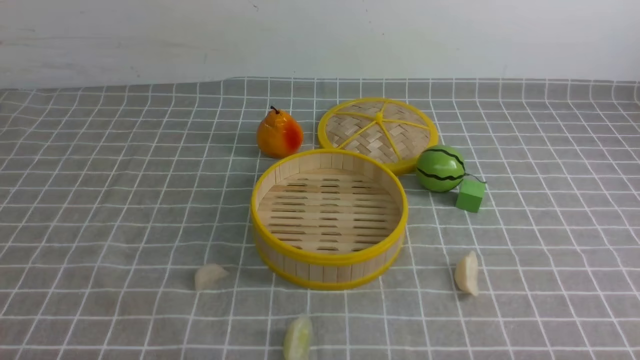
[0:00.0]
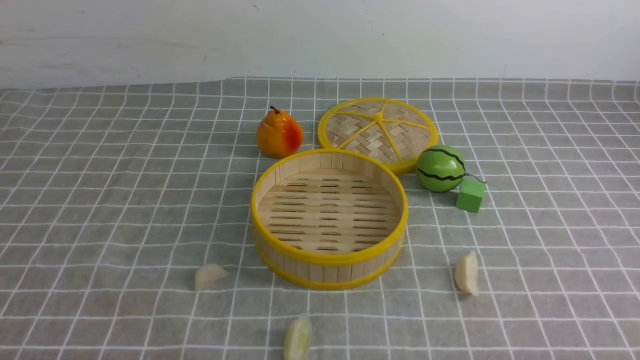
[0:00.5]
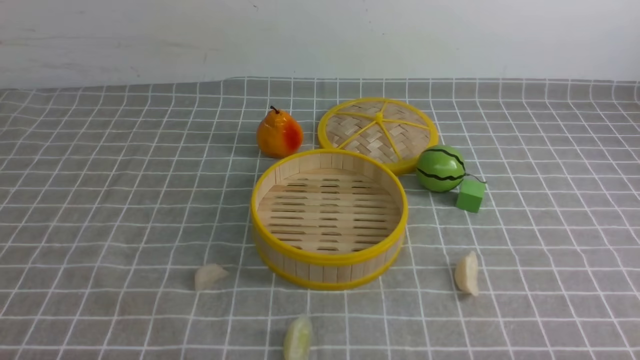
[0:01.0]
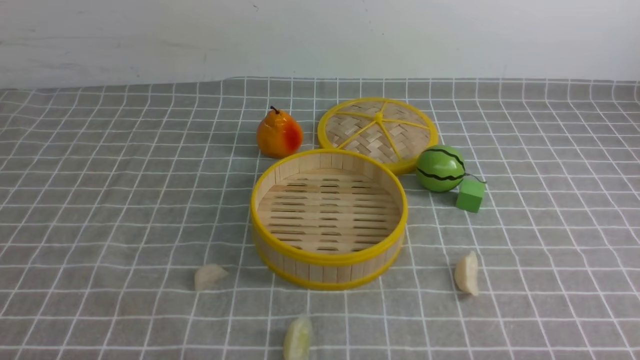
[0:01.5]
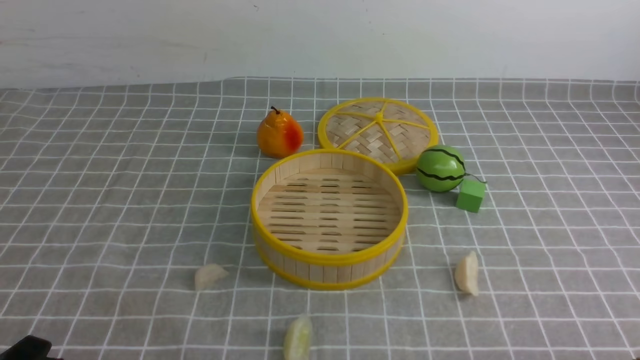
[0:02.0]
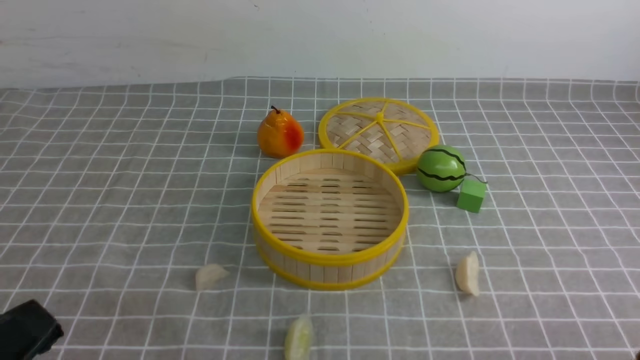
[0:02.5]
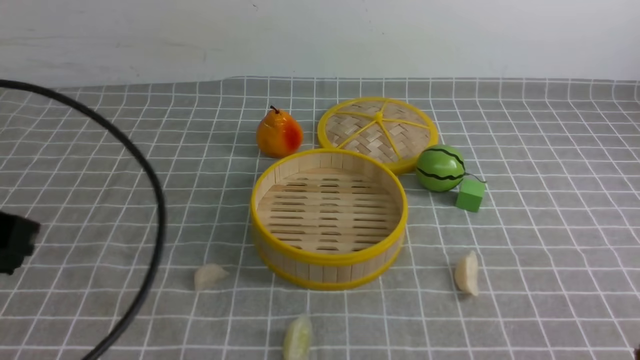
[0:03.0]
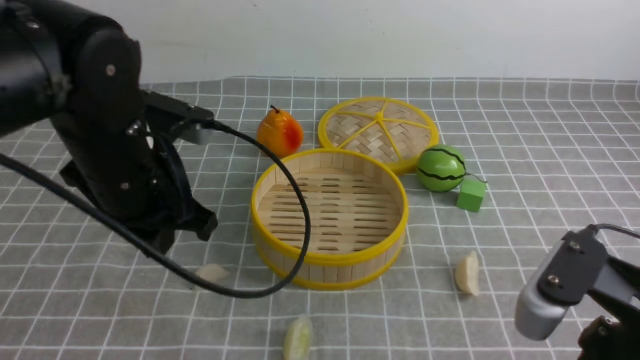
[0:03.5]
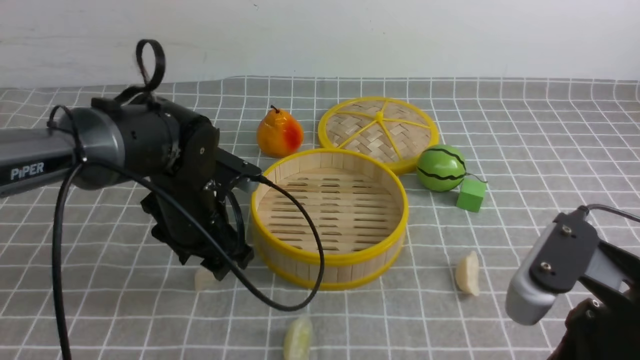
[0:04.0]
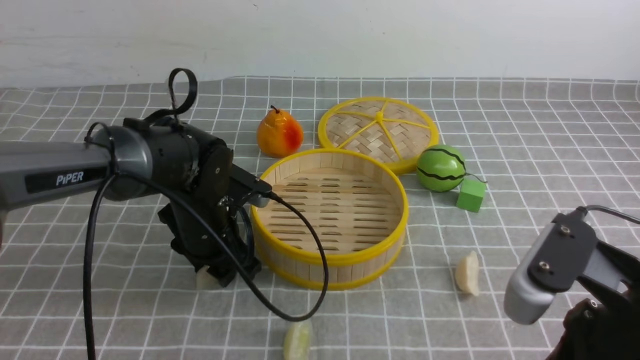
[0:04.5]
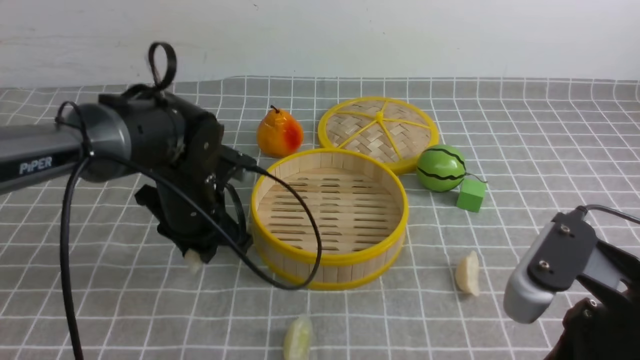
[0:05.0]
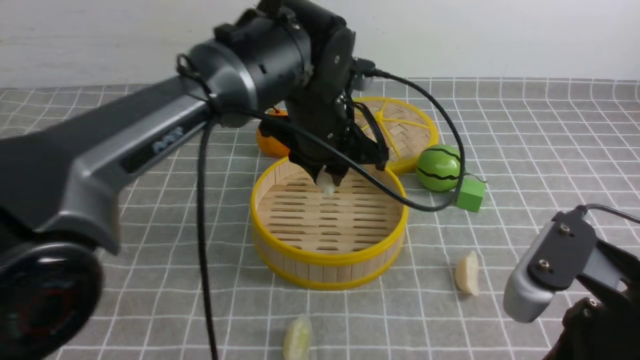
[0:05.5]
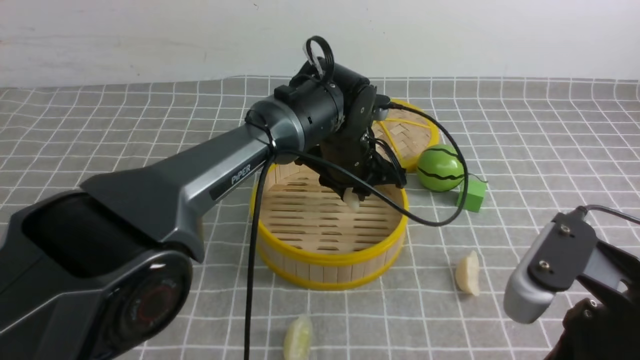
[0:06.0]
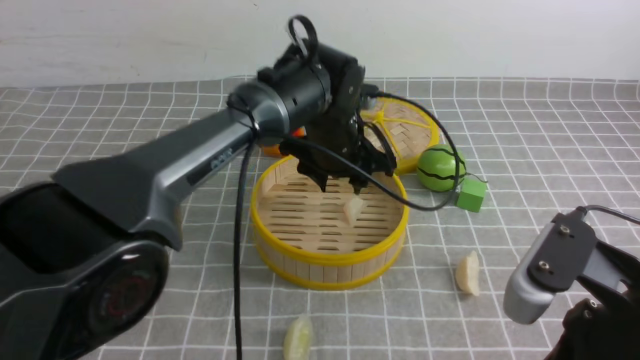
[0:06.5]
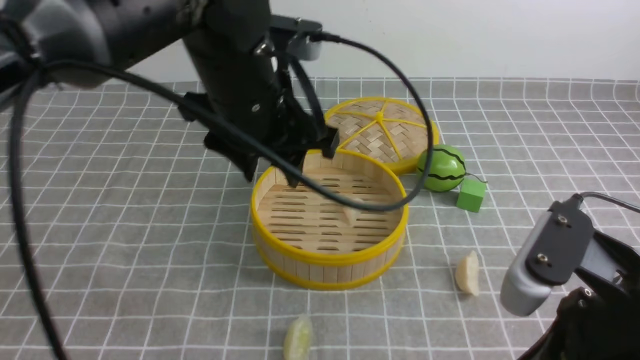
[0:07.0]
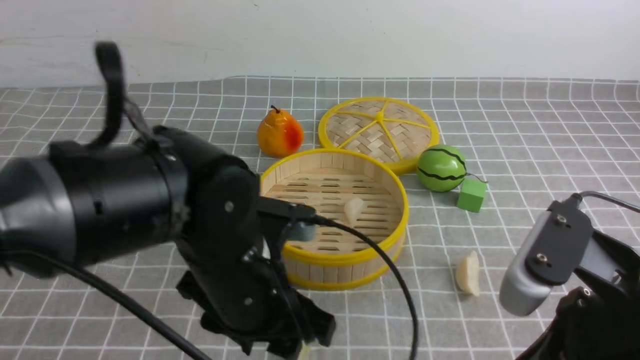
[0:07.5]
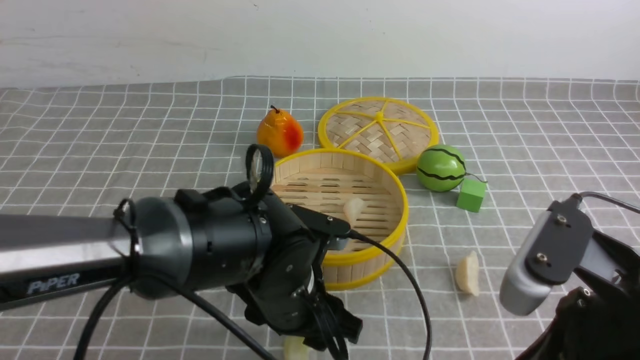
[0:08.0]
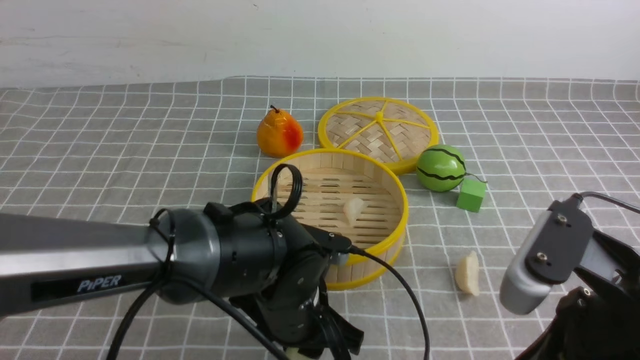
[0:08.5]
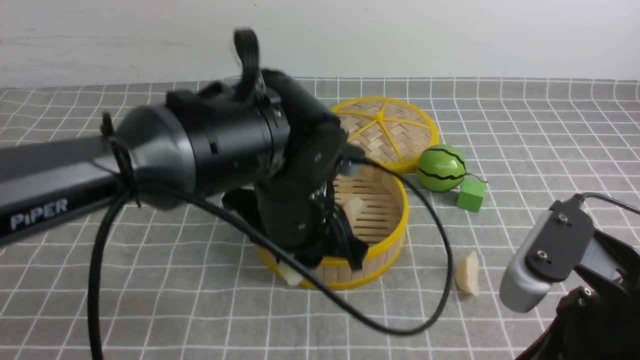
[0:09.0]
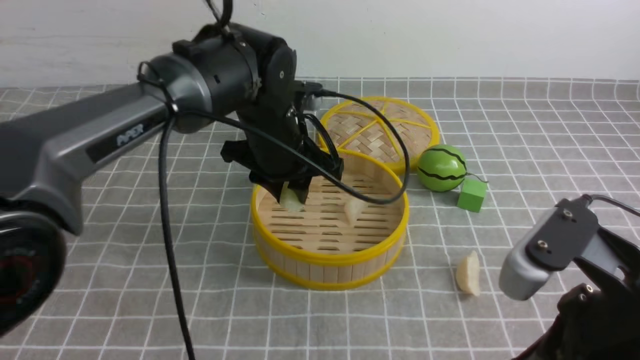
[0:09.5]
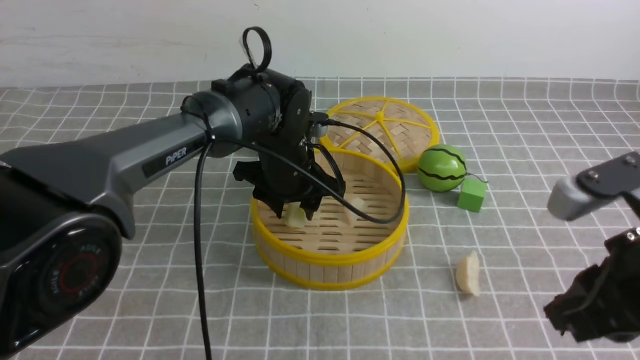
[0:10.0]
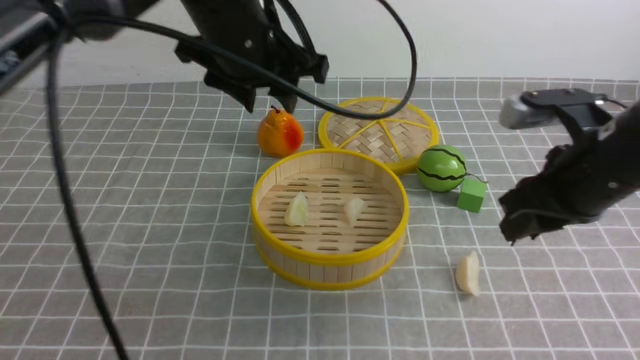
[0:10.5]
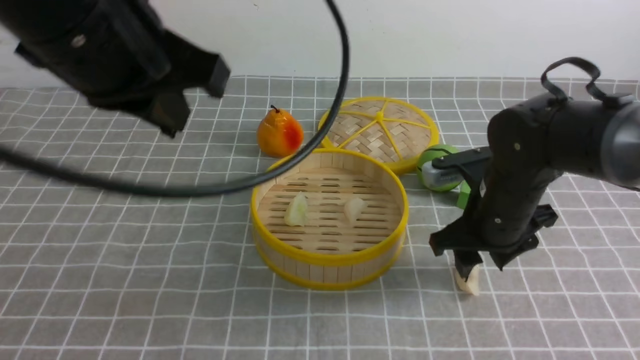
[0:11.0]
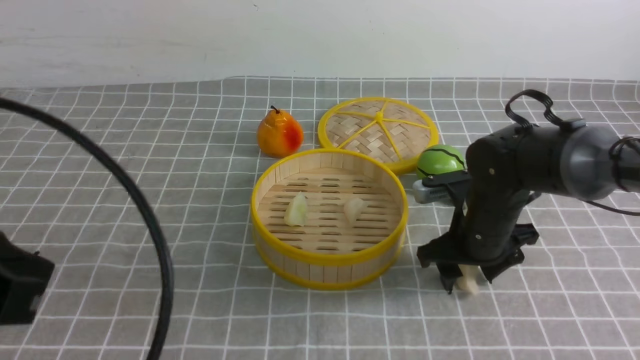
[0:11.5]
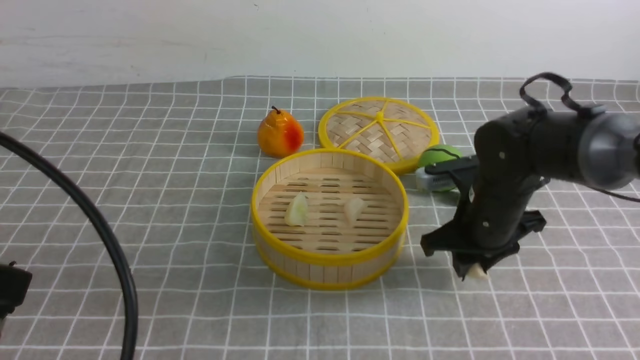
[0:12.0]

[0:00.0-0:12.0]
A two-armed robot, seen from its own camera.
Task of the whole recording: put the dumplings into the steamer on the table with the grey tablecloth.
Step, 0:00.0 to 0:04.5: use the left arm to grab a dumpling.
Step, 0:05.0 to 0:06.5: use the left arm to put the dumpling into the steamer.
Step, 0:07.0 to 0:08.5: use the left arm to grab a dumpling.
Step, 0:09.0 to 0:10.0: use the left arm to put the dumpling into the steamer.
Step, 0:10.5 to 0:12.0: use the right arm to grab a dumpling.
0:02.0 to 0:04.0: The right gripper travels upward, to the left and forward by about 15 cm, and closes up; the left gripper goes approximately 30 cm forward, and opens.
0:04.0 to 0:06.0: The left gripper heads to the right and forward, covering some 20 cm, and closes.
0:06.0 to 0:08.0: The left gripper moves backward, about 20 cm.
0:08.0 to 0:10.0: The left gripper shifts roughly 15 cm forward. Meanwhile the right gripper ends up approximately 5 cm from where it was.
0:10.0 to 0:12.0: The right gripper heads forward, downward and to the left, covering approximately 20 cm, and opens, then closes again. The left gripper heads backward, to the left and upward, covering approximately 40 cm, and closes up.

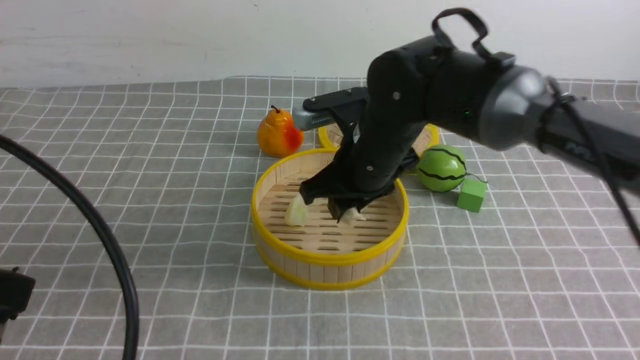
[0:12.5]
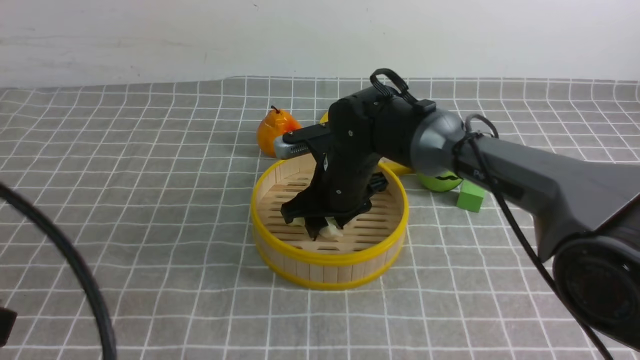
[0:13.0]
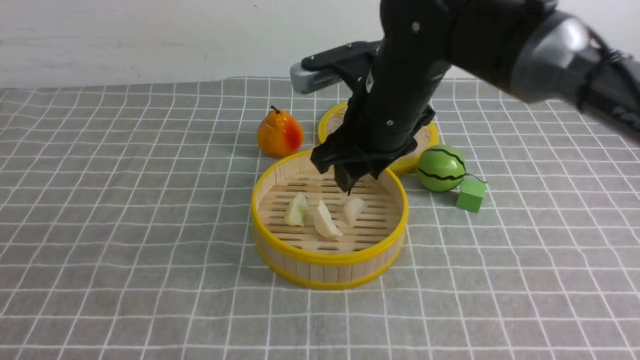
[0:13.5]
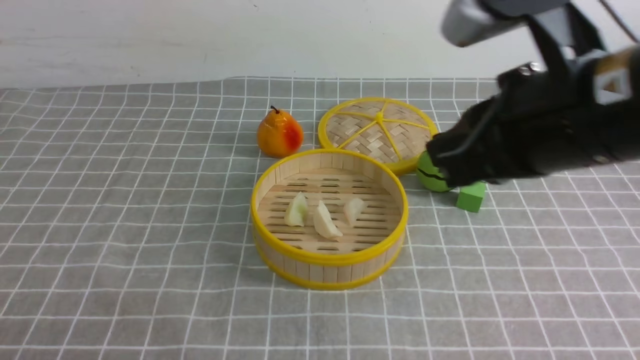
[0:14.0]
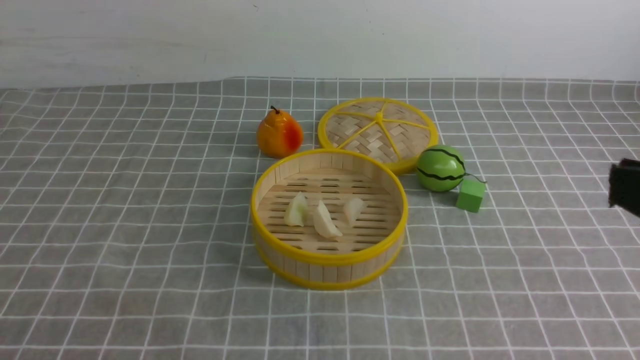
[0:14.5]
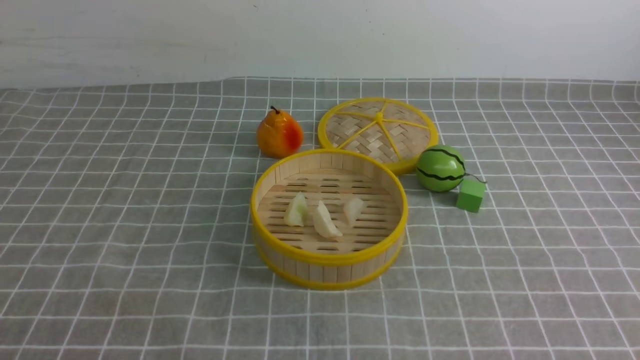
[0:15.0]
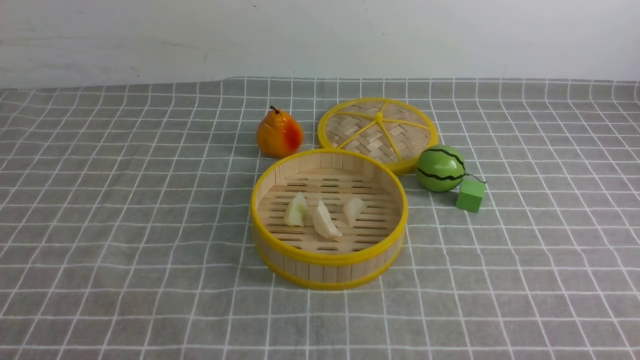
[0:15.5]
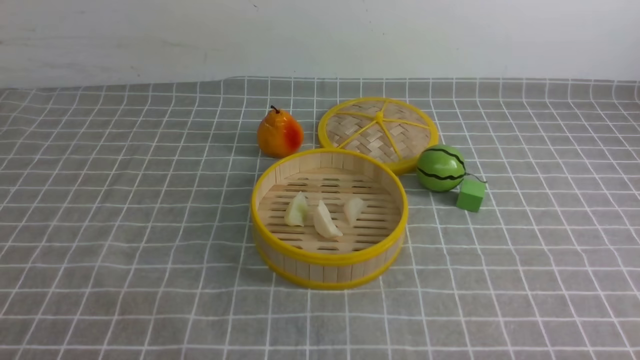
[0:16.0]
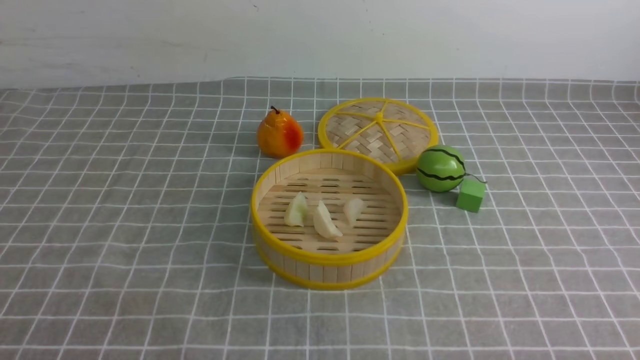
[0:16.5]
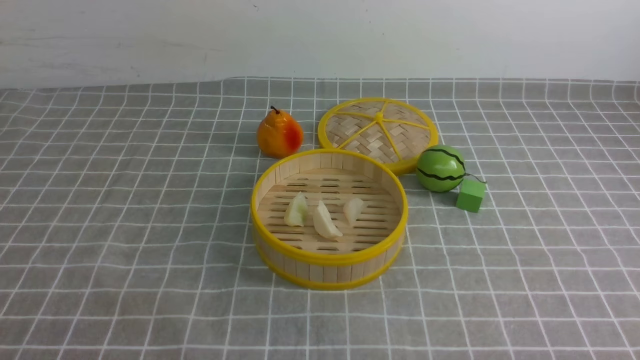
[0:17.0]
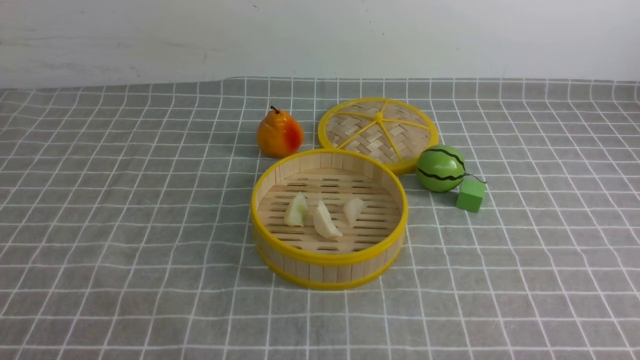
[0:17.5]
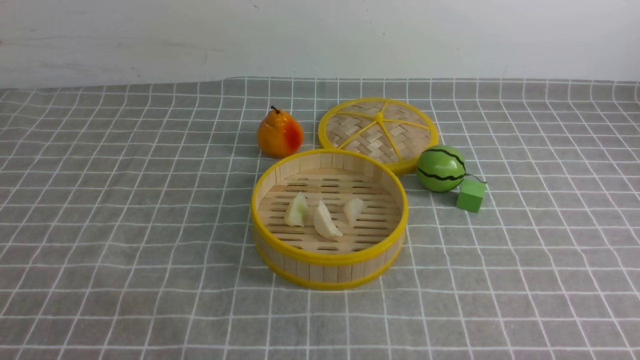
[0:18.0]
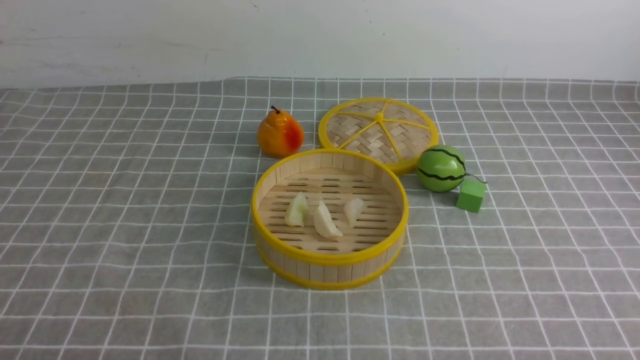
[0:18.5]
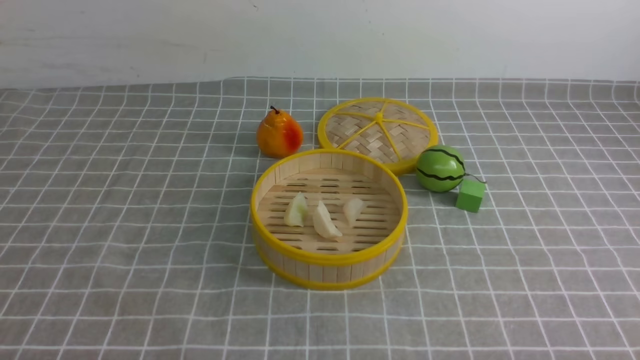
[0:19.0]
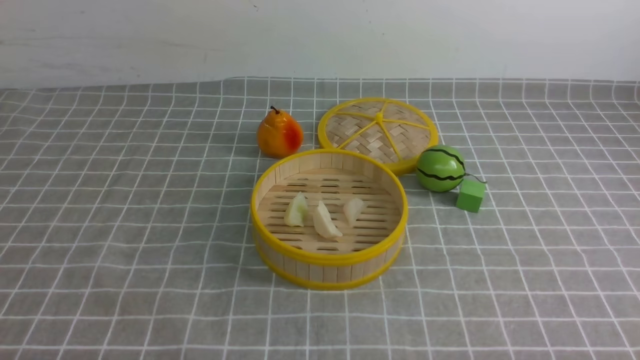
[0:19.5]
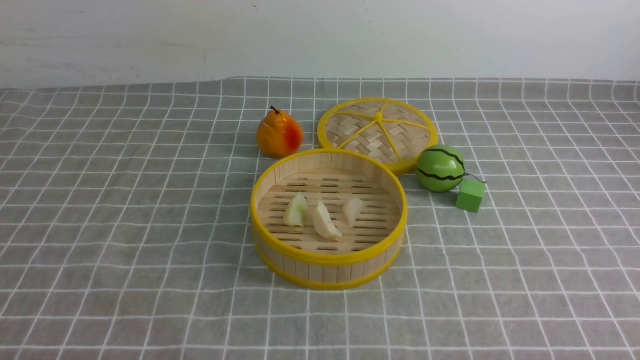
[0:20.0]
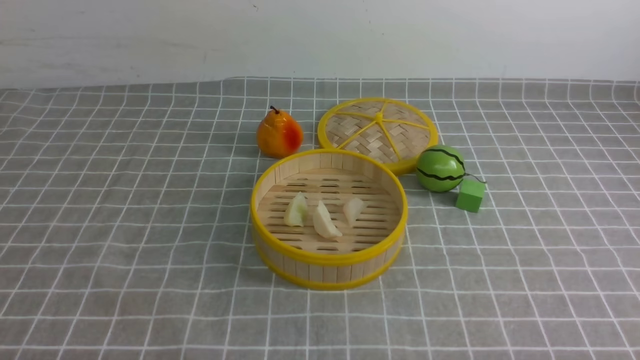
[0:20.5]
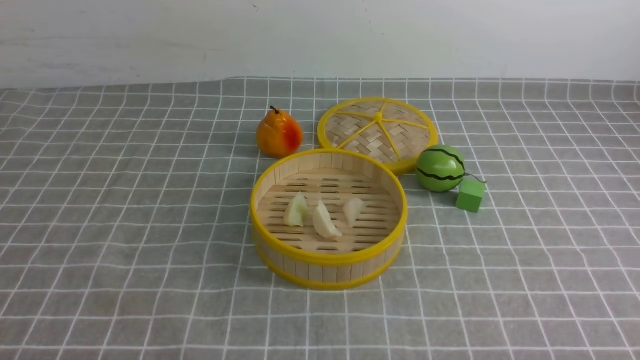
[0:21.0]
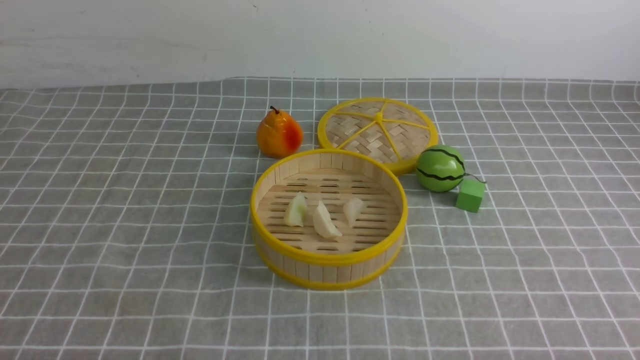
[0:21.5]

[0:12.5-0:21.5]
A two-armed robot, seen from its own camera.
Task of the whole recording: put the dumplings into the steamer on the table with the grey tablecloth.
Step, 0:12.5 to 0:13.0: use the right arm to put the dumpling into the steamer.
0:12.5 to 0:14.5: The left gripper goes some 10 cm downward and backward; the right gripper goes some 35 cm backward, to the right and upward, and closes its fingers.
0:14.5 to 0:17.0: The right gripper travels downward by approximately 20 cm.
0:19.5 to 0:21.5: Neither gripper changes place.
